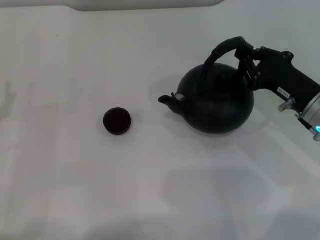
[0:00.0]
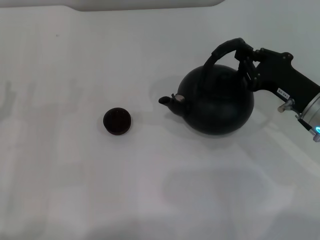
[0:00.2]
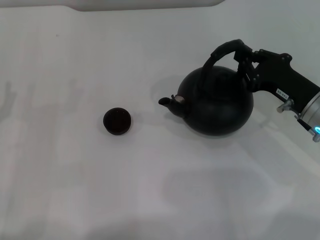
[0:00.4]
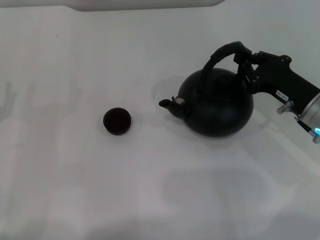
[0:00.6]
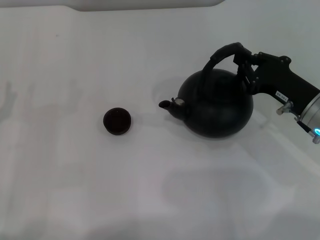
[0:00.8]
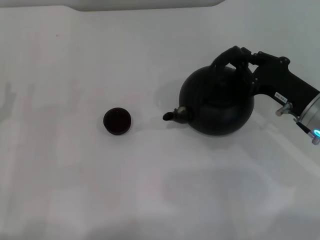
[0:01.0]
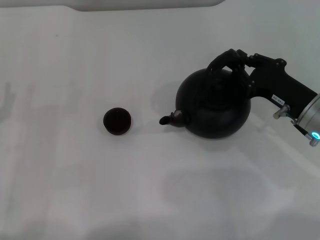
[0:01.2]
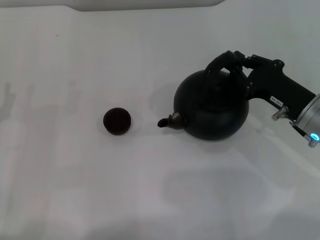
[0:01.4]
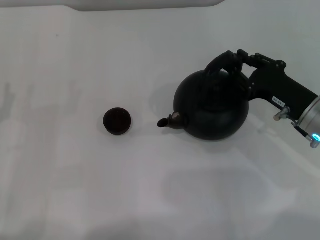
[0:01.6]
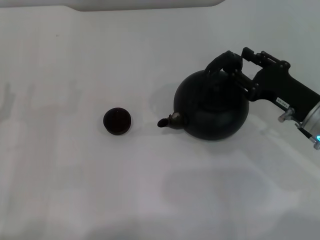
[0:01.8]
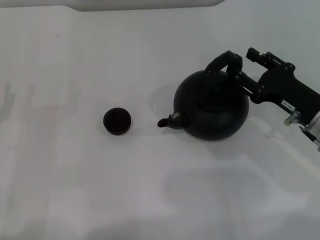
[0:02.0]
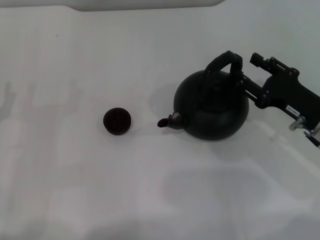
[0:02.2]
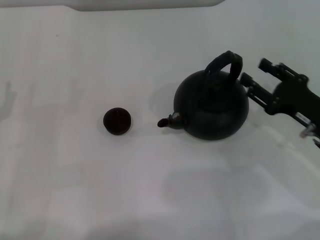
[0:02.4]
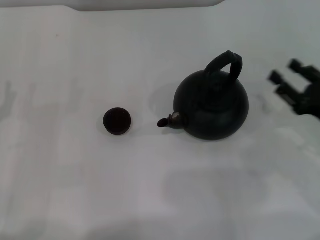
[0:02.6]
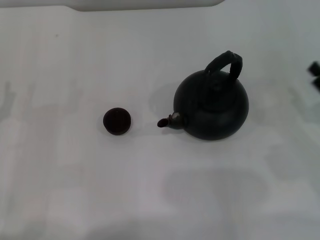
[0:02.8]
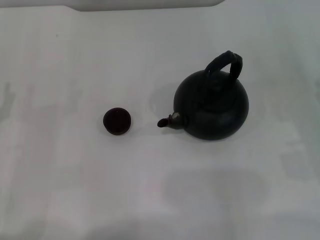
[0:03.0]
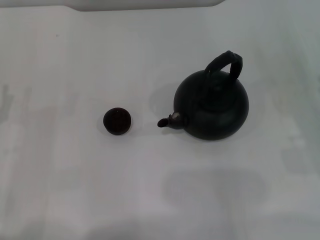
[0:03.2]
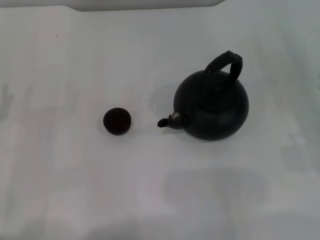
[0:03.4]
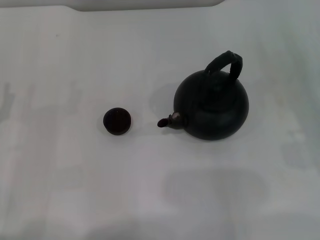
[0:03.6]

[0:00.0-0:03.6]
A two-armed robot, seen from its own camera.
Task of the whole recording: Grasp the handle of the teapot with one hand and pour tea into the teacup.
Step, 0.0 to 2.4 s: Put down the teapot with the right gripper.
0.0 to 1.8 s: The right gripper opens.
1.8 to 3.6 s: The right gripper moves to the right, some 10 cm, and opens.

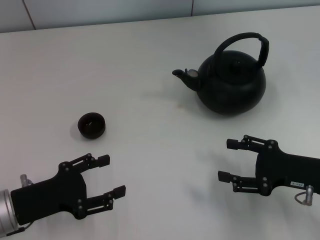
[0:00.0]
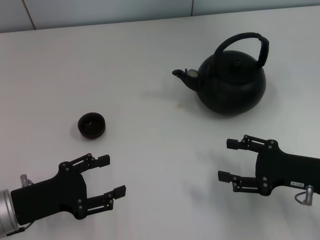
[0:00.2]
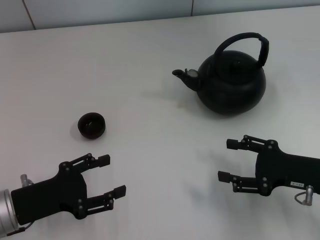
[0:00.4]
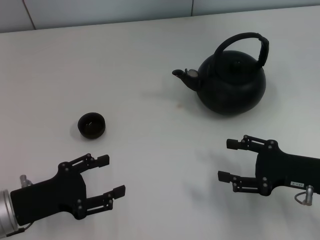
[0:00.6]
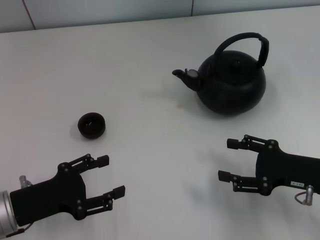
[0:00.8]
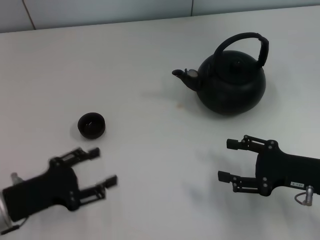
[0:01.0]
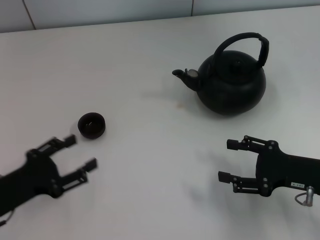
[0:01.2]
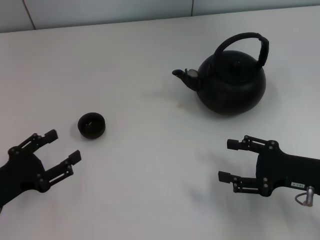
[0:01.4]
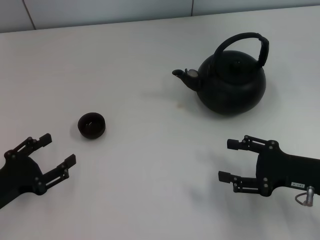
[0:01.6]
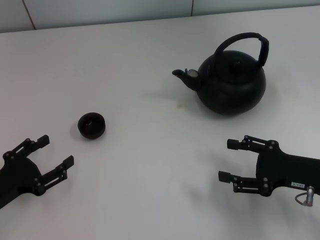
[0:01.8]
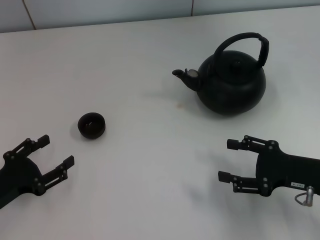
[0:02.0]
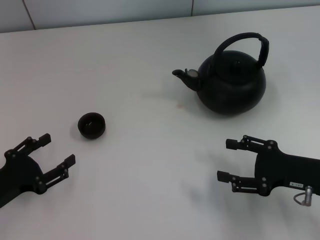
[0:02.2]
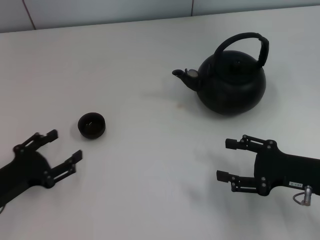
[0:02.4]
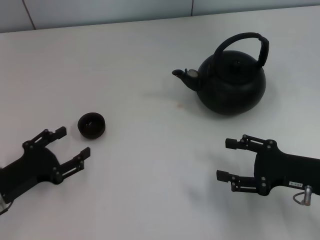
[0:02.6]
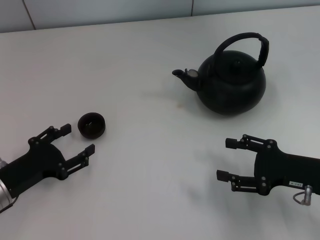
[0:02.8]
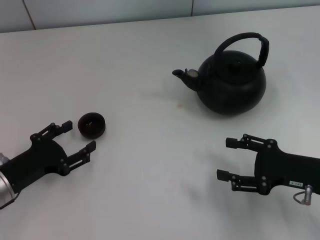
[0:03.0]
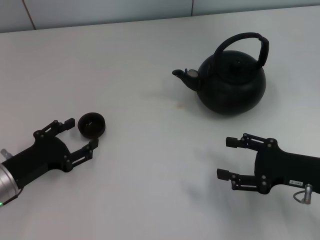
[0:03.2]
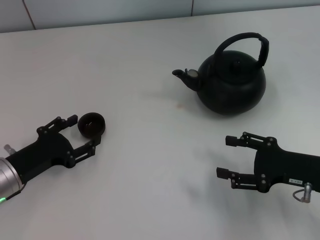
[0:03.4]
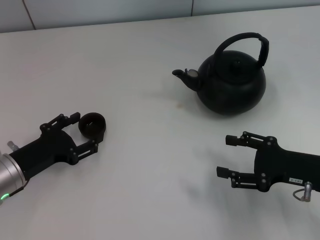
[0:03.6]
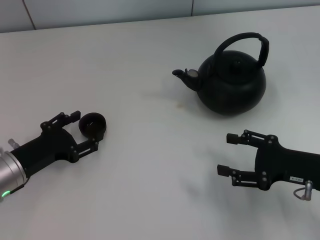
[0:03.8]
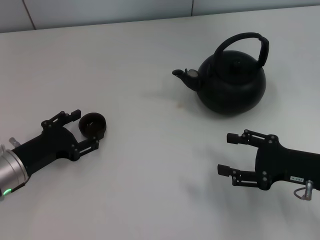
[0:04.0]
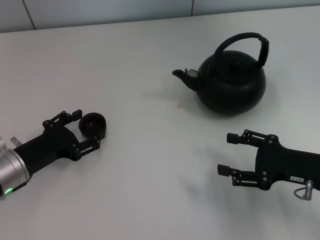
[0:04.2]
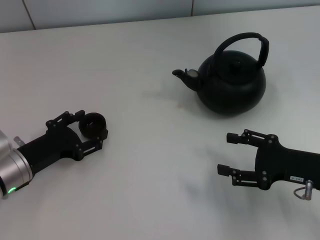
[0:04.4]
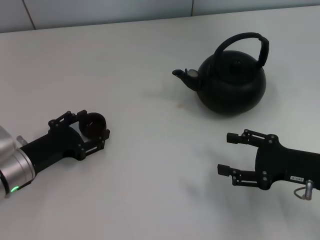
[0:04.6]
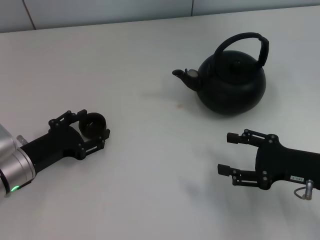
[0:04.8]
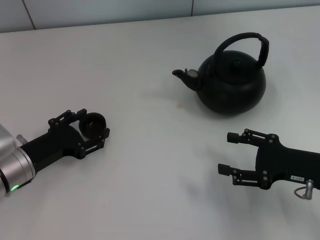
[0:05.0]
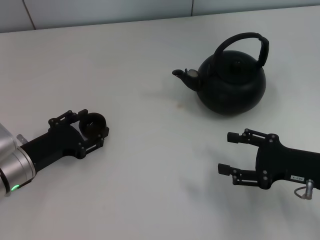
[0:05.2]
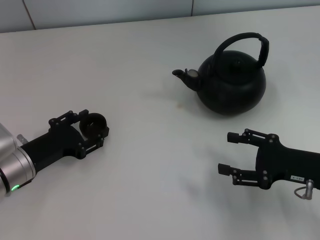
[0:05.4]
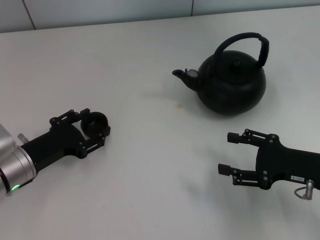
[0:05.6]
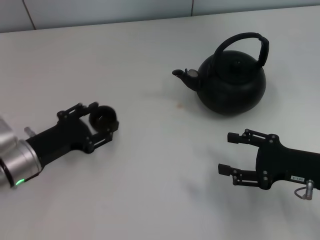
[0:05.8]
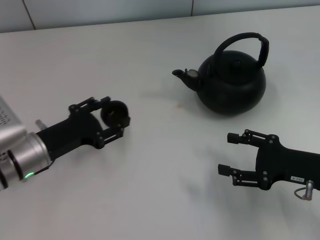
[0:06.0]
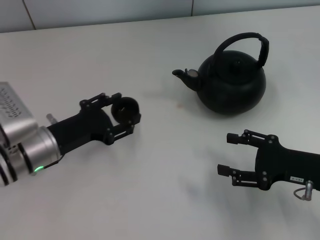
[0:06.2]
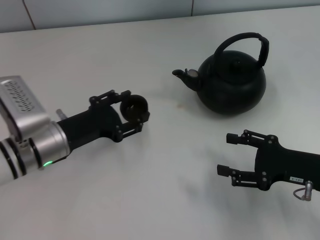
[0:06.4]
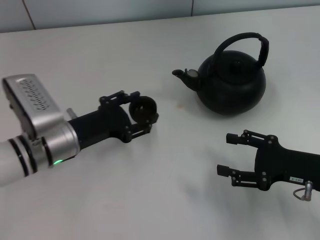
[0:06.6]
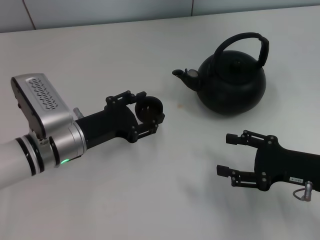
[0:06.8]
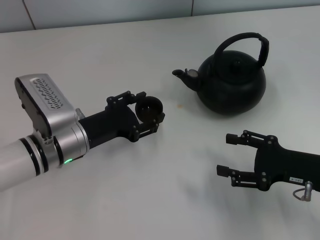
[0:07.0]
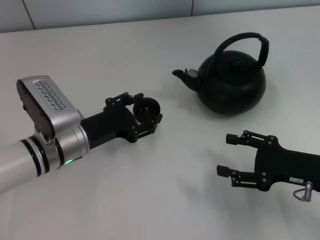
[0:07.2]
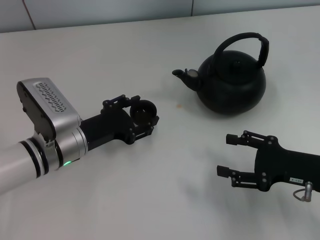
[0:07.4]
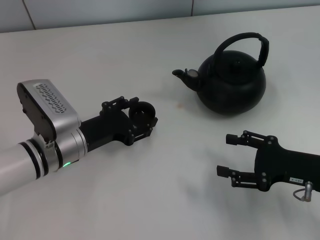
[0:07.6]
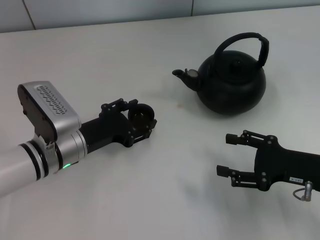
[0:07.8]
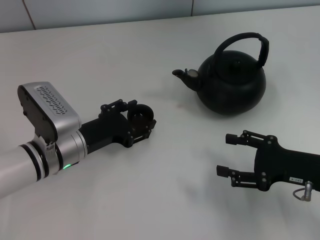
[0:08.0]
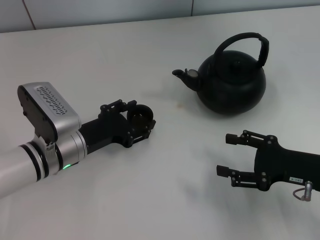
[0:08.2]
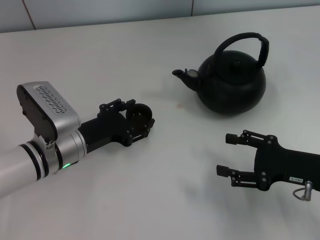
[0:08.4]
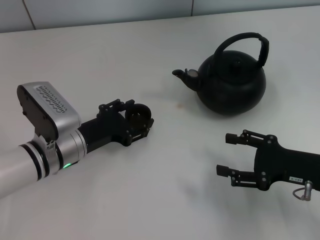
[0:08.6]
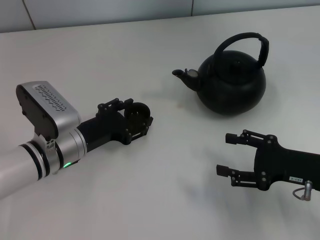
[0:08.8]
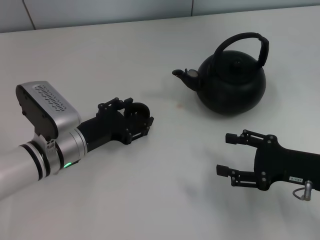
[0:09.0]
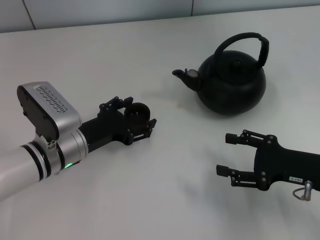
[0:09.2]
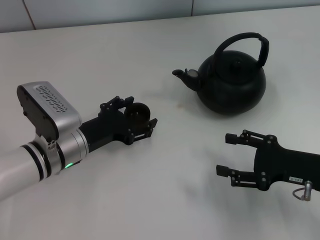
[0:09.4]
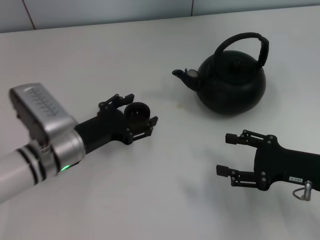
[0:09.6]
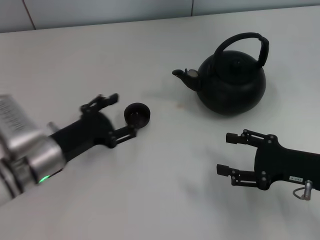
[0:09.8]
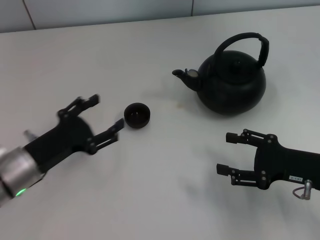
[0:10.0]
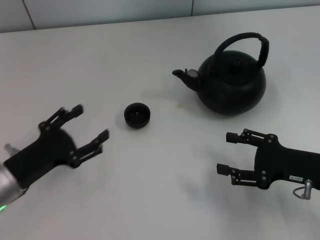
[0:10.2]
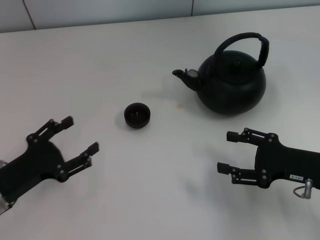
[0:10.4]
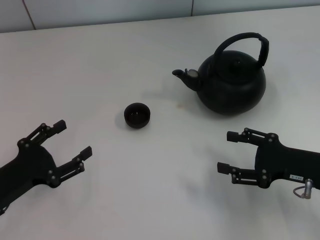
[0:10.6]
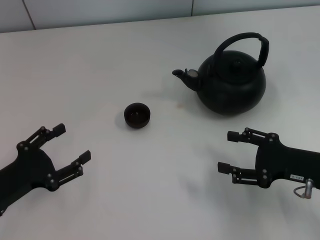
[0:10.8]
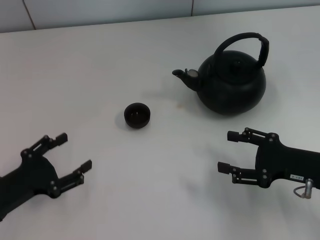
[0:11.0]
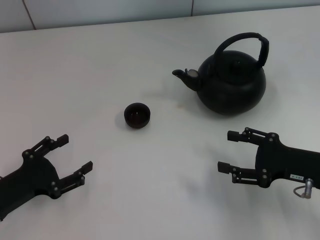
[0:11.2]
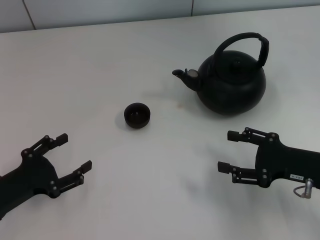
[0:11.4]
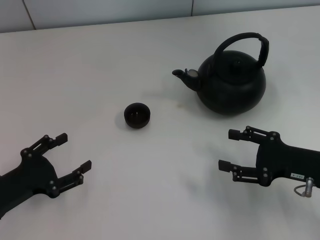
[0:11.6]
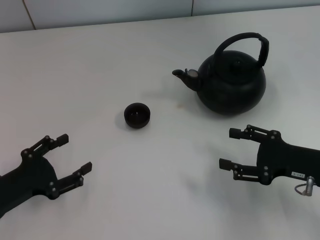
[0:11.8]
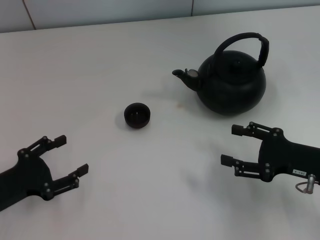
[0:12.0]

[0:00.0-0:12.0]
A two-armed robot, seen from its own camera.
Task of the whole recording: Grasp the handle of the teapot with one hand and pour tea into the teacup.
Step, 0.0 to 6.0 s: Pick up the teacup with the left gripper.
Step, 6.4 to 9.8 s: Place the teacup in the center of view with the left gripper.
1.6 to 3.0 s: The grippers move only a little.
3.0 to 6.0 s: The grippers make only small movements.
6.0 to 7.6 s: The left gripper travels to the right by about 5 cm.
7.6 to 9.0 s: The two grippers keep their place.
9.0 to 10.4 s: The left gripper heads to the left and backward, covering roughly 15 cm, and opens its fingers.
10.4 to 12.0 s: There are only small adjustments of the grippers.

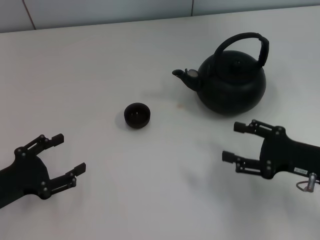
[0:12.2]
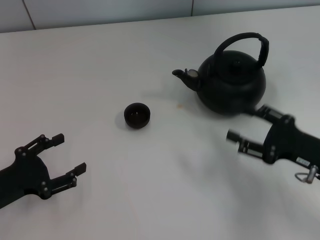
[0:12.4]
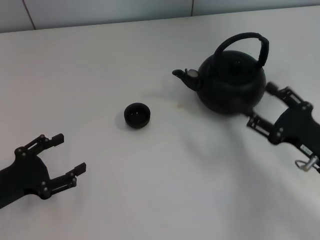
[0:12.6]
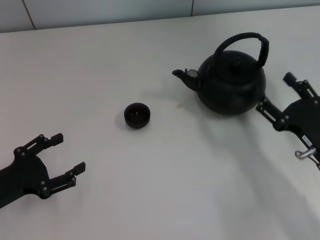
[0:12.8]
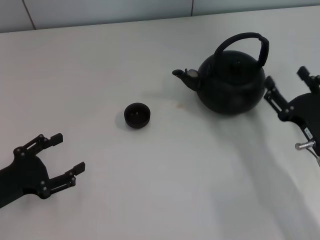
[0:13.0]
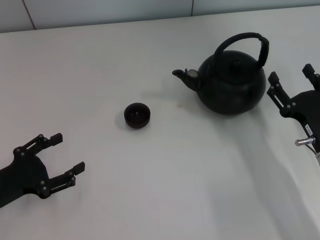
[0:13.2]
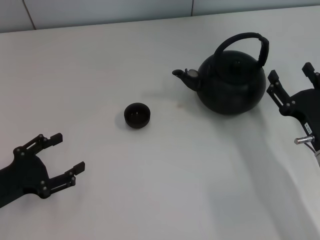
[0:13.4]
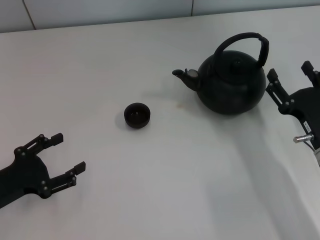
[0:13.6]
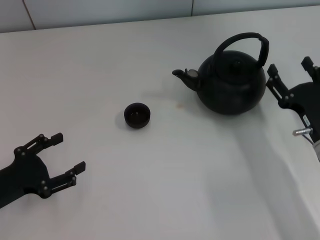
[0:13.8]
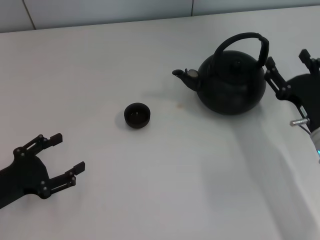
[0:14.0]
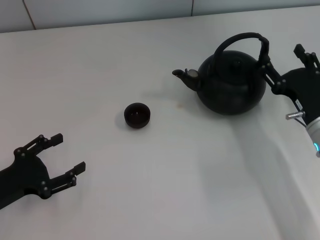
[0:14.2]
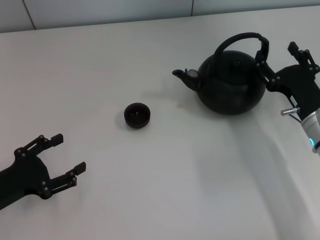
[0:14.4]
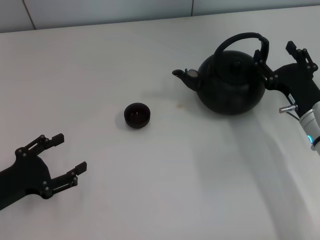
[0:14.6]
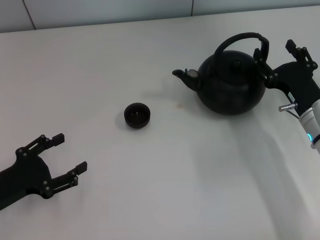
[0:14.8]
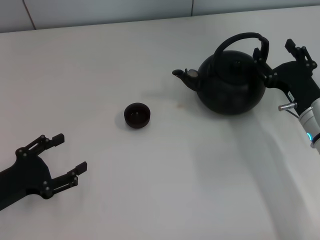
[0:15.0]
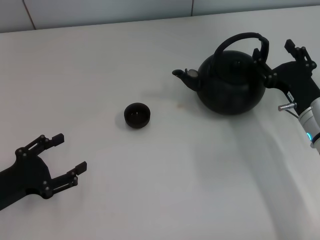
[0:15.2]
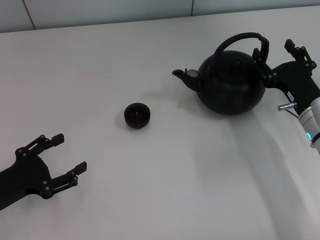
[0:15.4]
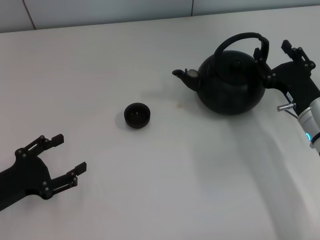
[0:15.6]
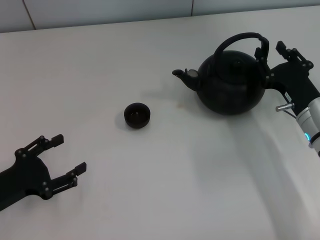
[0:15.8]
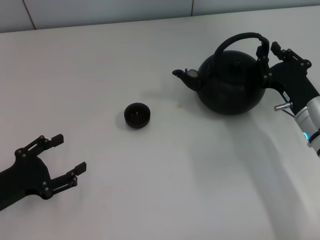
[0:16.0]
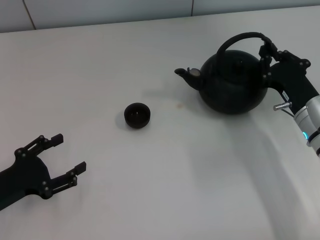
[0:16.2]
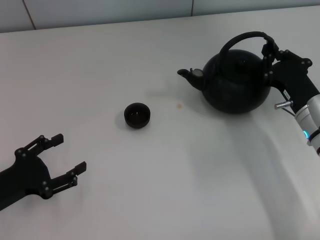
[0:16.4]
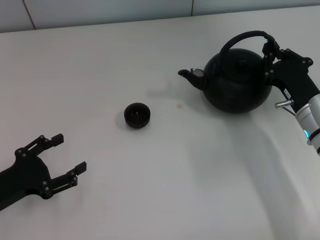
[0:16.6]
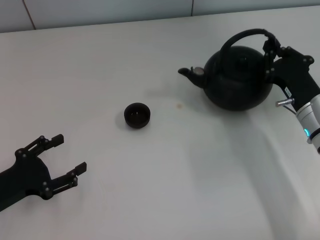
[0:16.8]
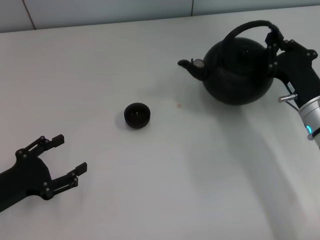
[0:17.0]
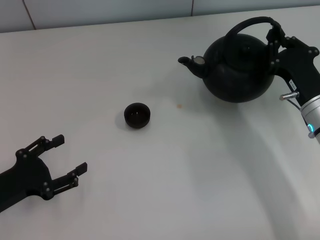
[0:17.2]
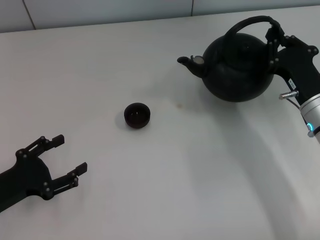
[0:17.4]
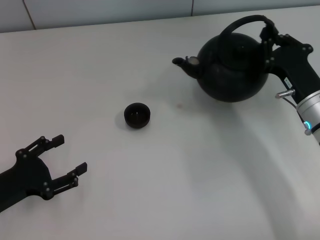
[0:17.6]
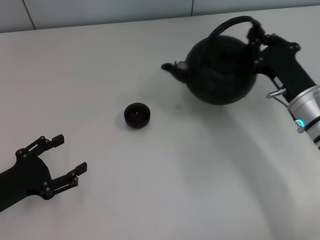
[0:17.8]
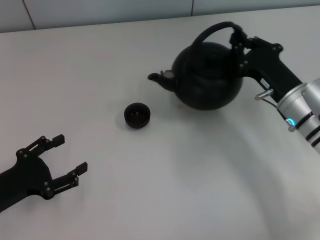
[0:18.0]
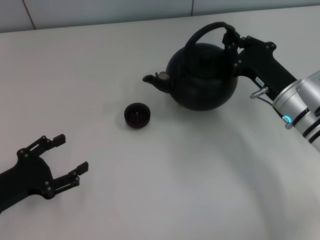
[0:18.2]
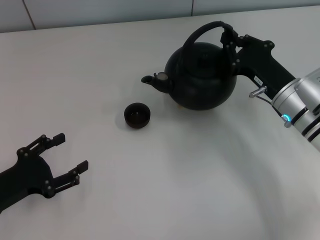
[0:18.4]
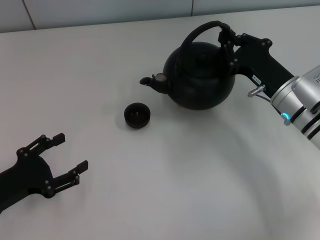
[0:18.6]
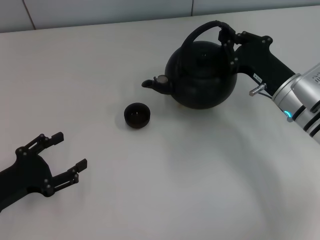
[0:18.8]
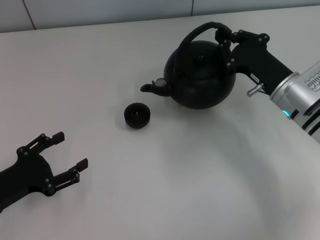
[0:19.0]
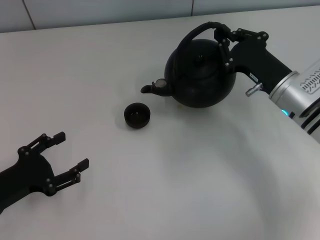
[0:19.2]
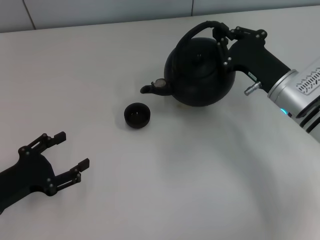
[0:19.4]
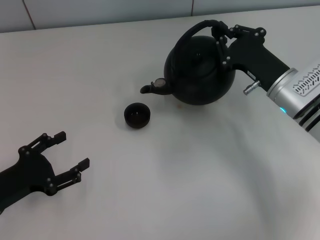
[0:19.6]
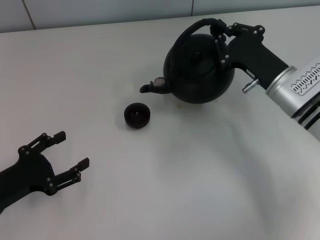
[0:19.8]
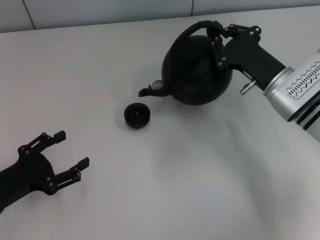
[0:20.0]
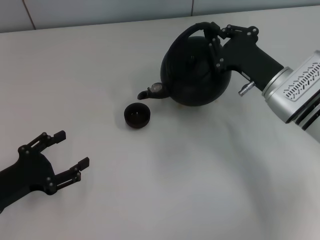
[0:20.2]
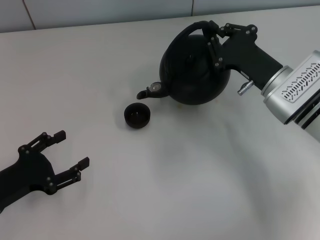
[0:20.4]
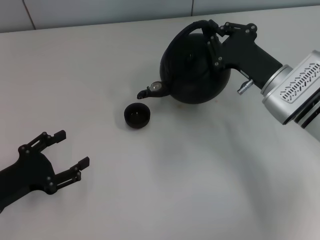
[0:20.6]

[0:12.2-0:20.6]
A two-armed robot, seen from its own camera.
Task of the whole recording: Grasp the handle of the teapot with one hand and pour tea into the teacup.
Step, 12.2 to 17.6 s: Pick up the teapot with the right gripper.
13.6 to 15.0 s: The right gripper shifts approximately 5 cm forward.
15.0 to 16.4 s: The right gripper closes its fingers.
16.4 to 17.8 s: There are only small adjustments of the grippers.
17.8 to 19.2 s: The grippers make only small movements.
19.2 to 20.6 s: There are only small adjustments of the grippers.
